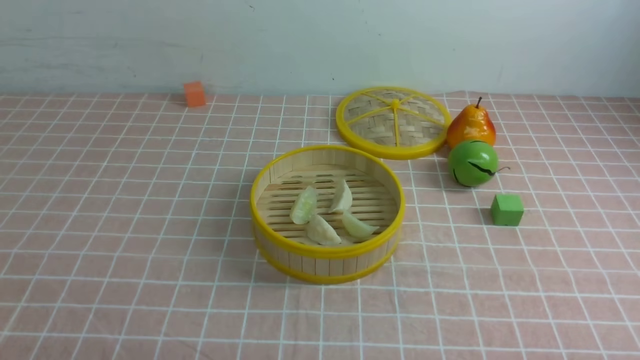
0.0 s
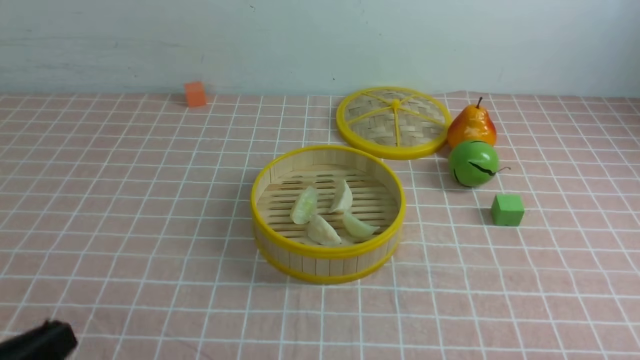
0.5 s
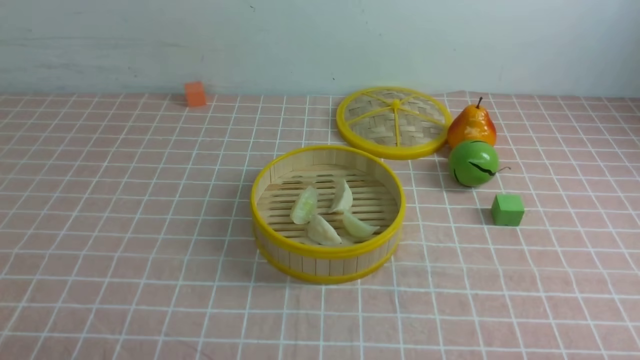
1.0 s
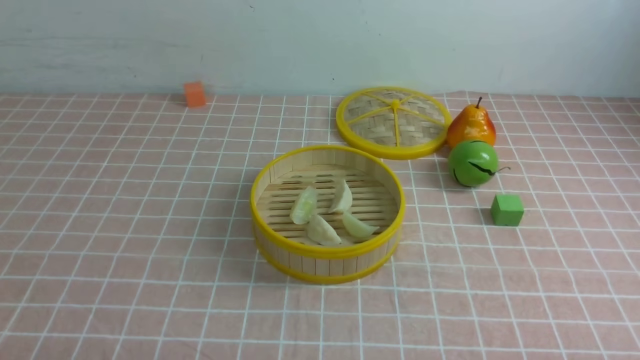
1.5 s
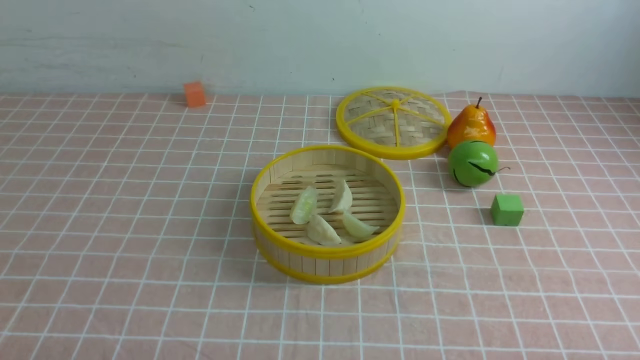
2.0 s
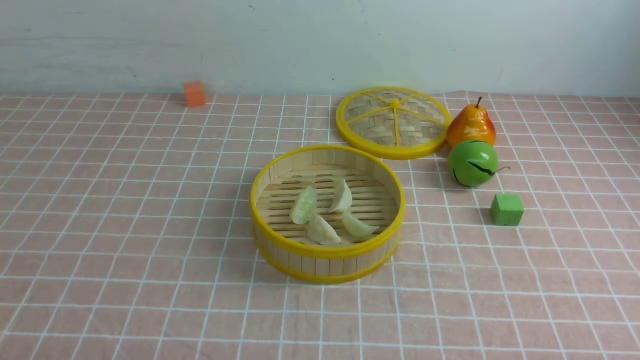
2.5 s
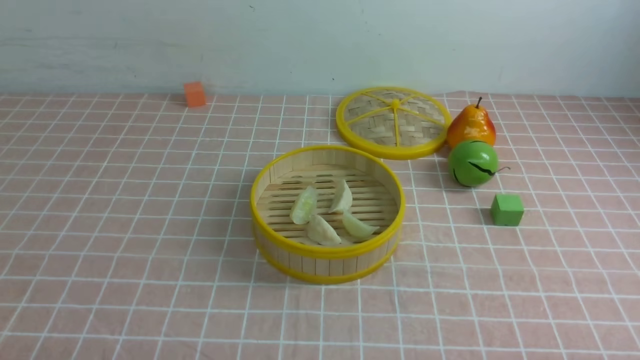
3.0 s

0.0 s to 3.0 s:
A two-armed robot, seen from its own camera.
Task of the whole recording: put the dumplings into the steamer on the table with the pink tablecloth.
1.5 to 3.0 s: Neither gripper changes place.
